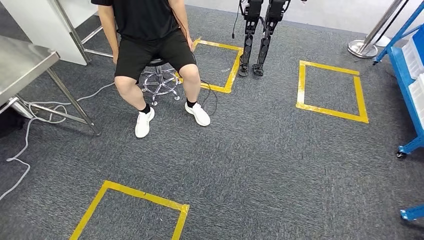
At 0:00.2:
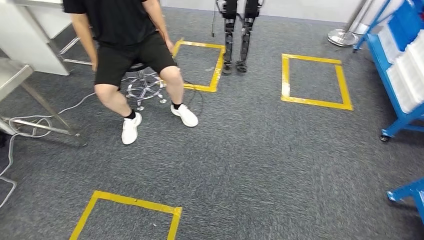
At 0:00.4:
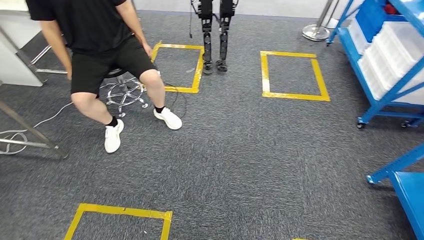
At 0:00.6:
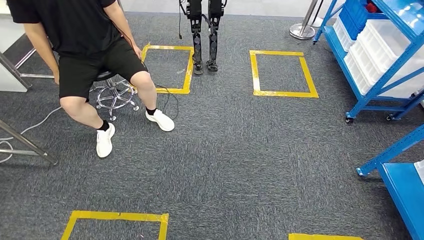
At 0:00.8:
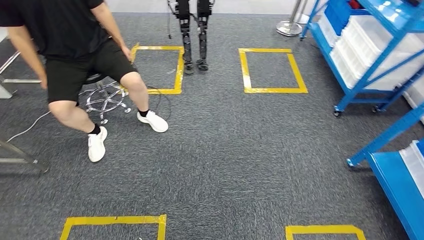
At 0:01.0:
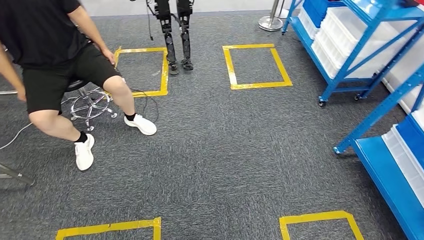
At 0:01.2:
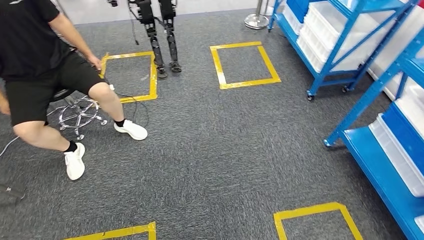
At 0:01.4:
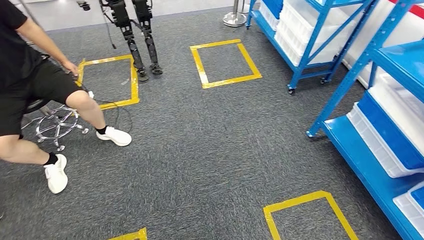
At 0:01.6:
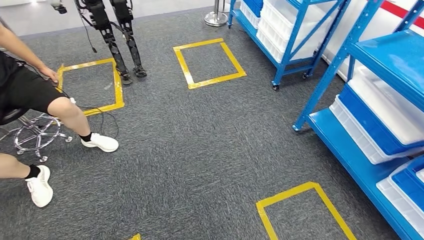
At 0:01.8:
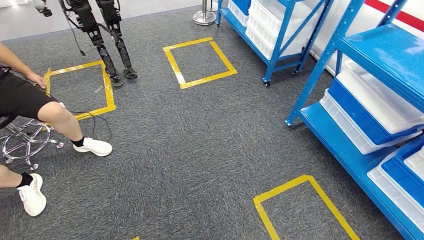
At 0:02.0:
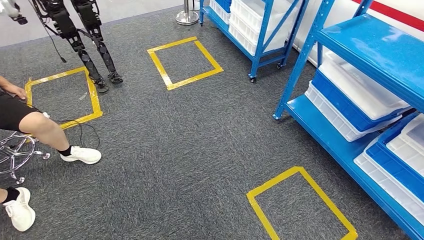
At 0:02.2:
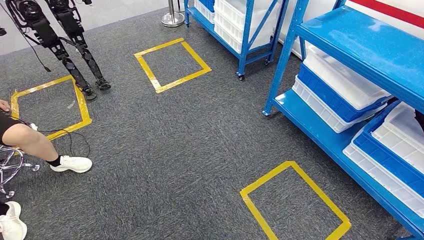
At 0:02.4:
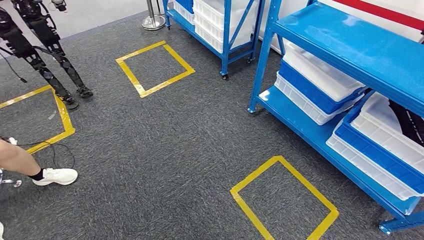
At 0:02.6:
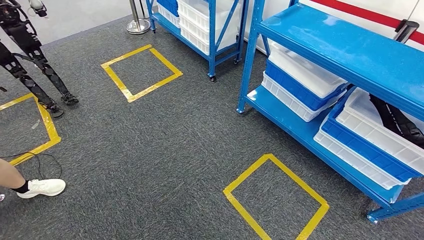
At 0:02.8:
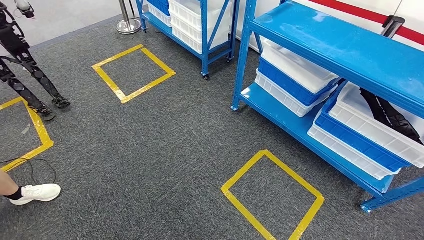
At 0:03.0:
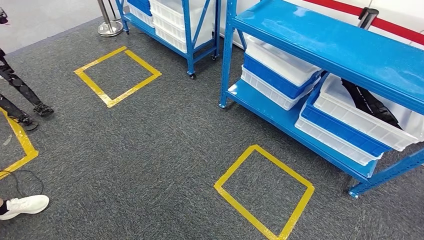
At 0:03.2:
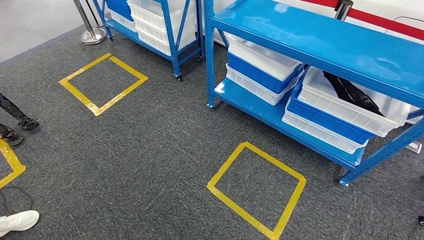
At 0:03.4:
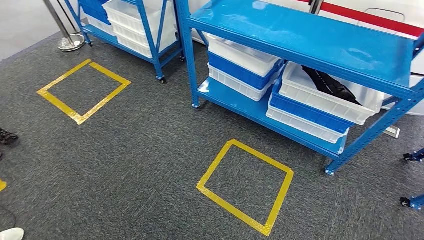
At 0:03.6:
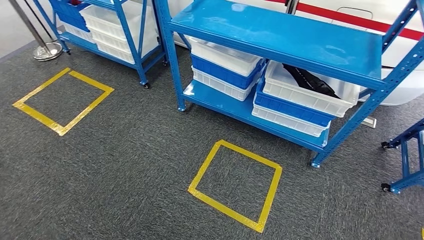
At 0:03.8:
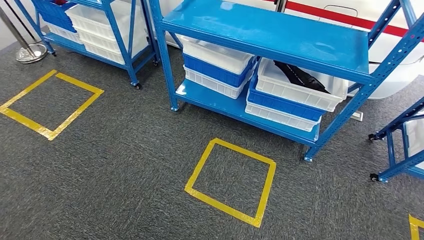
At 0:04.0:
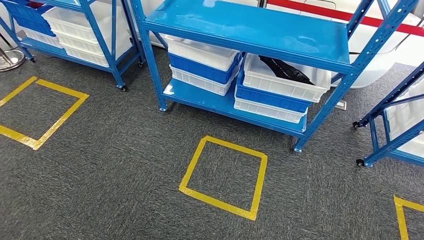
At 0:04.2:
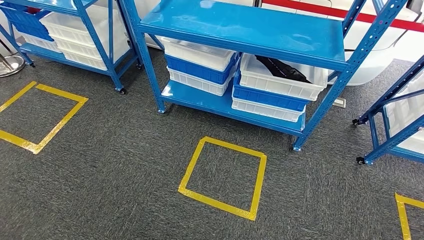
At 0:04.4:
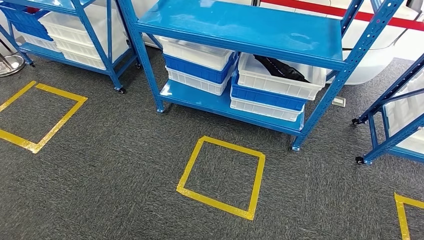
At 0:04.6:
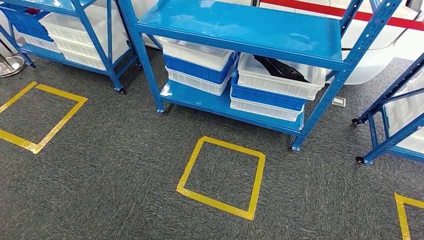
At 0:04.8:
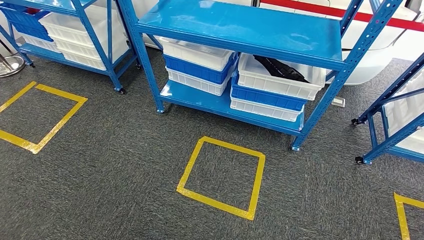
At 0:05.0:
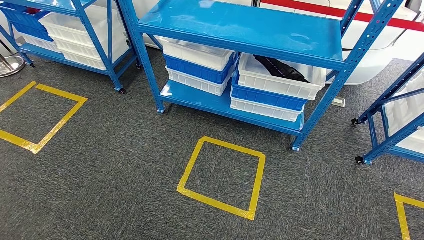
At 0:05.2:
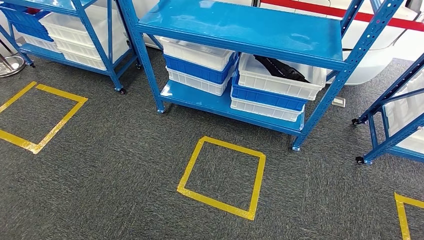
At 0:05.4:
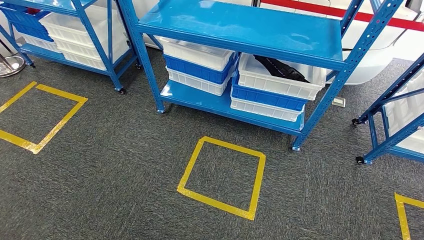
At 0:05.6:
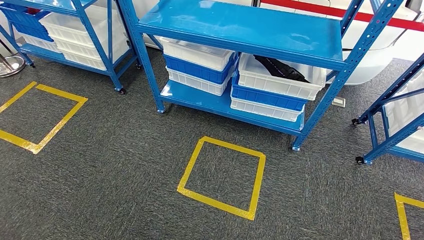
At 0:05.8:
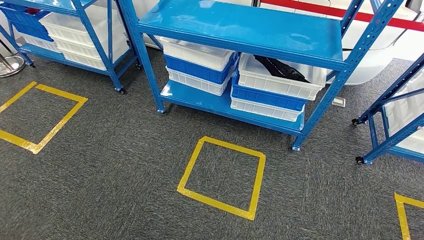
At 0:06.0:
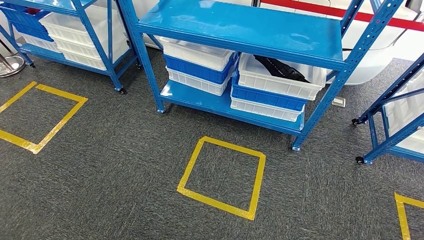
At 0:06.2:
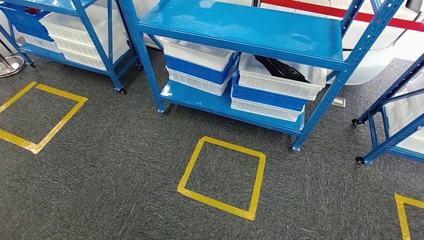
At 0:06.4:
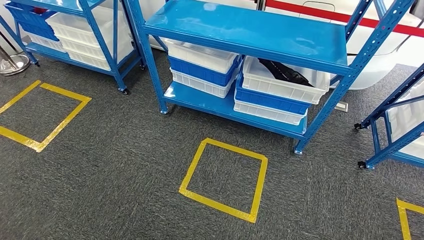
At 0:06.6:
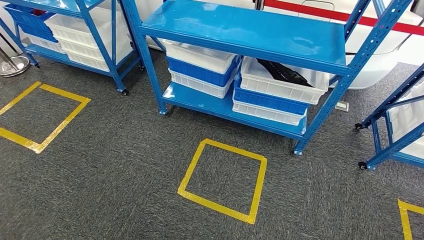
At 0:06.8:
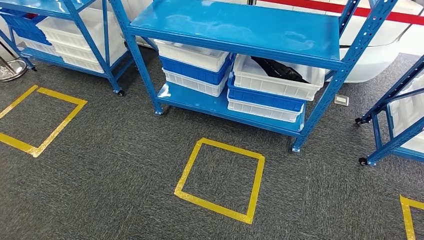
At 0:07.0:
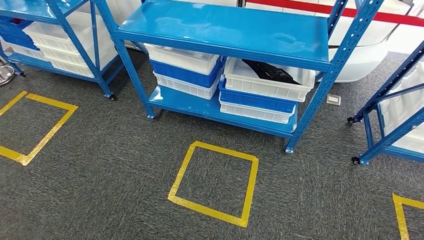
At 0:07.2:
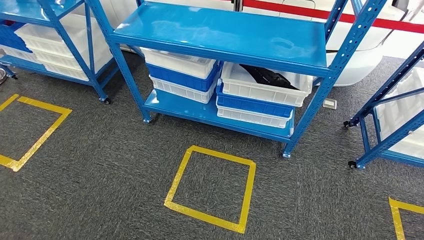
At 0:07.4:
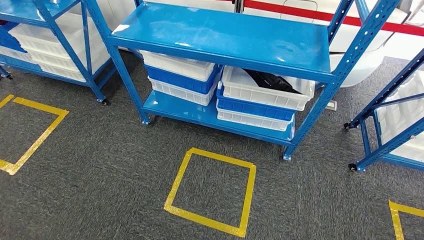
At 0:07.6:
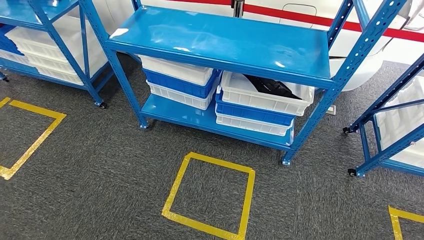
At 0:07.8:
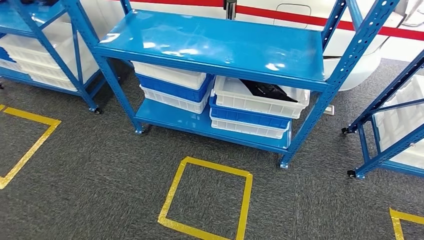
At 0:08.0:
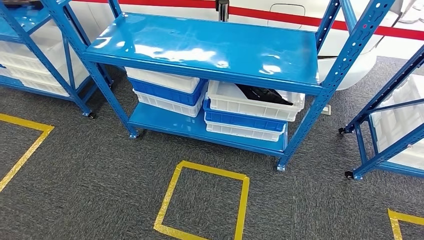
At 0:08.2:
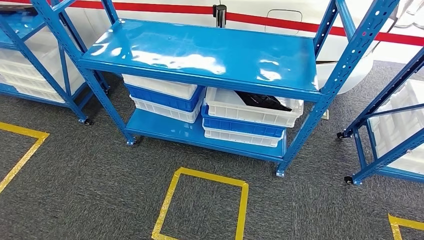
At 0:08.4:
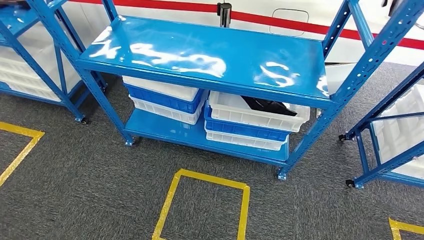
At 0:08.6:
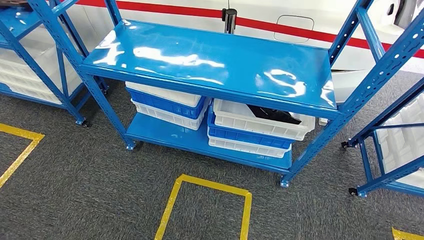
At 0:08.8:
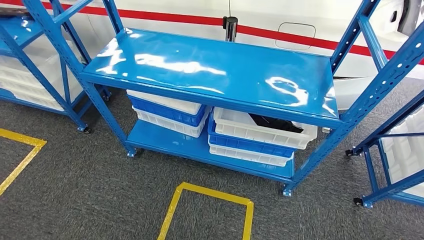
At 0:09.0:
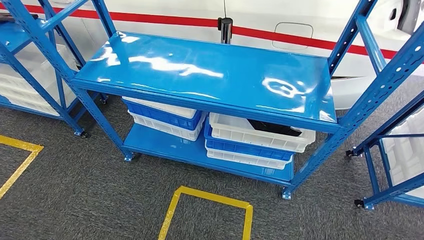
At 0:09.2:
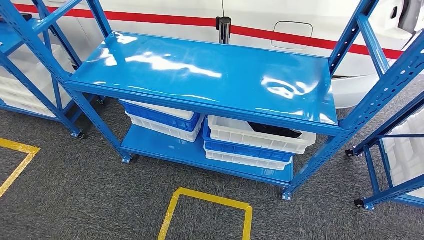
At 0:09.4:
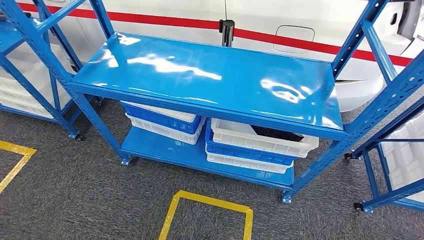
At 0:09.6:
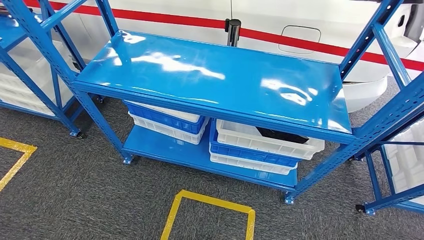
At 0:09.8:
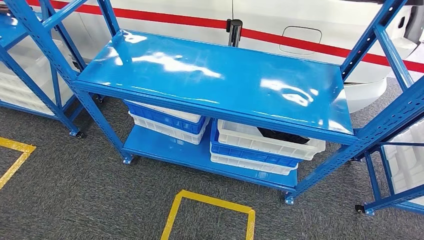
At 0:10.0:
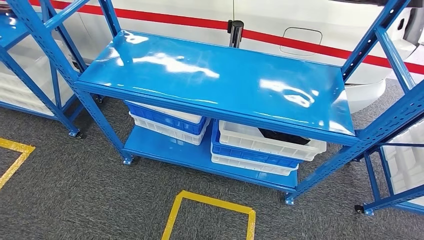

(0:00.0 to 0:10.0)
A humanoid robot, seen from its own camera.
0:04.2 - 0:05.8: The two hands keep their place.

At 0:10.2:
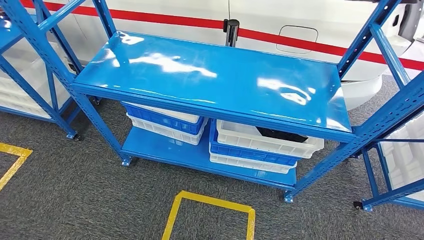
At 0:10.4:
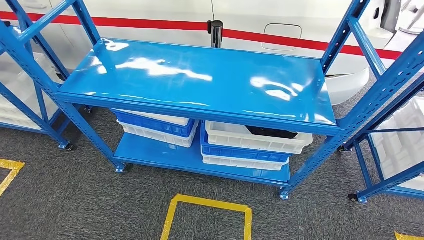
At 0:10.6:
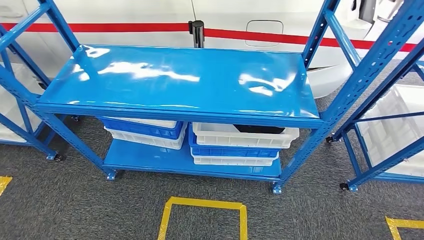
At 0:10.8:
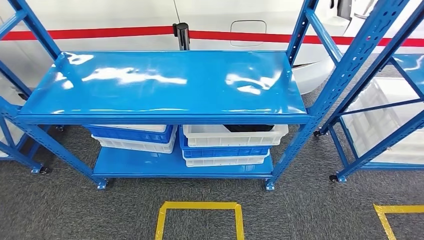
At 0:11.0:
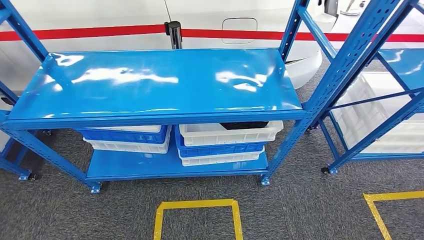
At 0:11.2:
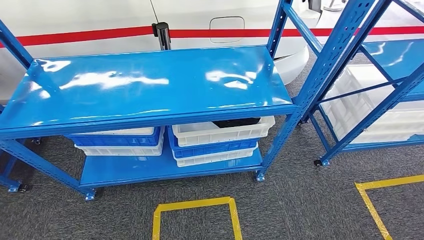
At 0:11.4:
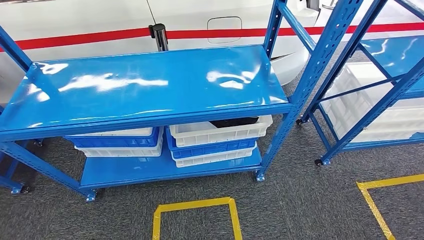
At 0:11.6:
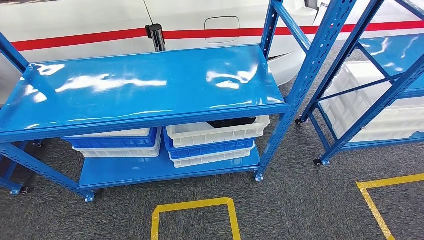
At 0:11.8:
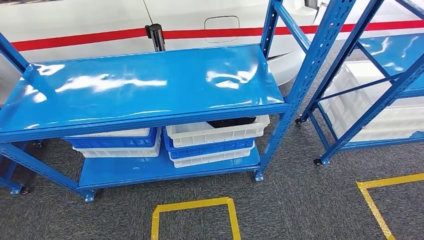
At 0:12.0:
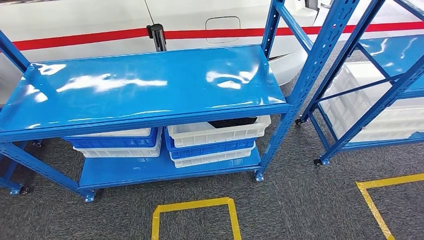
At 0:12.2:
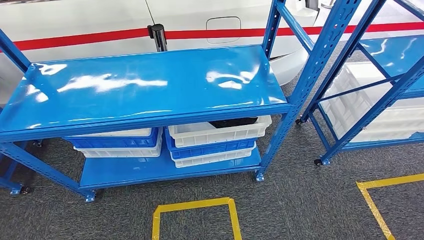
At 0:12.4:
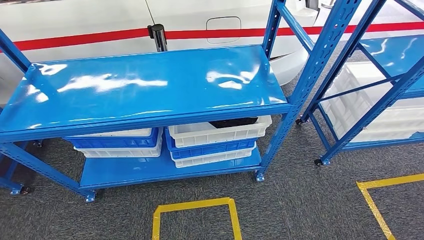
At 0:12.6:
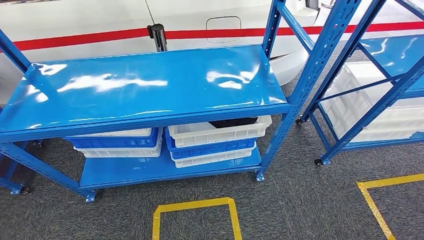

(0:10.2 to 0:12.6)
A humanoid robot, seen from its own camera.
Step, 0:10.2 - 0:12.6: Return to the initial position at the shelf.
0:11.4 - 0:12.6: Both hands move backward, approximately 5 cm.

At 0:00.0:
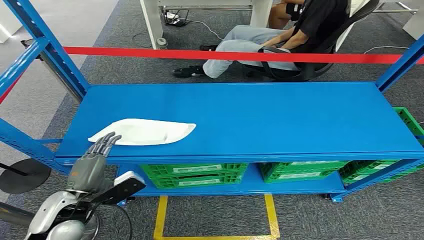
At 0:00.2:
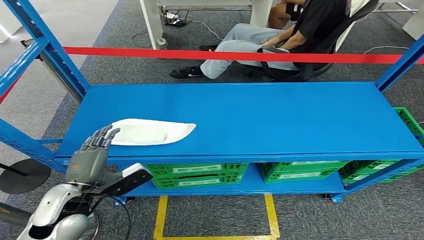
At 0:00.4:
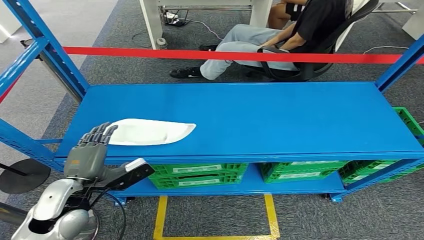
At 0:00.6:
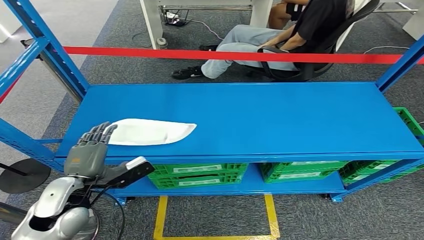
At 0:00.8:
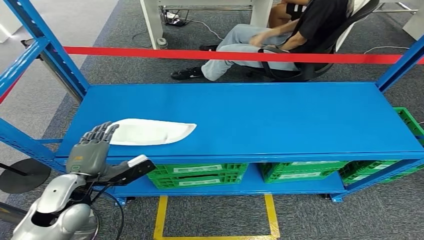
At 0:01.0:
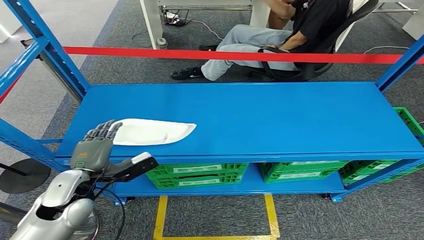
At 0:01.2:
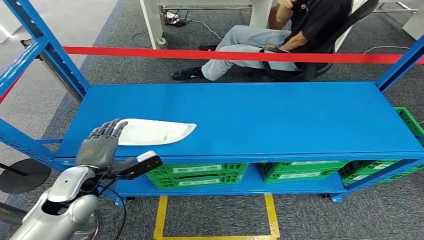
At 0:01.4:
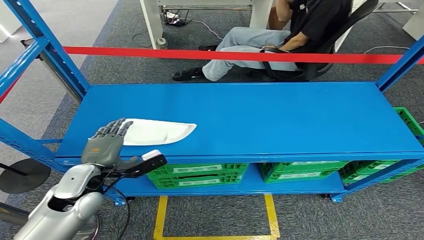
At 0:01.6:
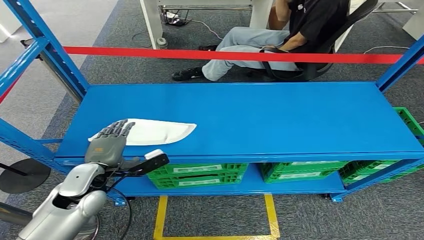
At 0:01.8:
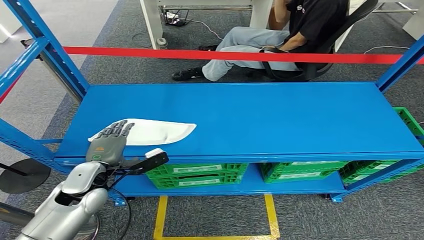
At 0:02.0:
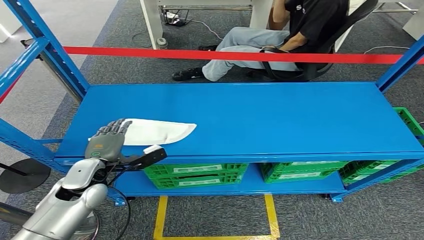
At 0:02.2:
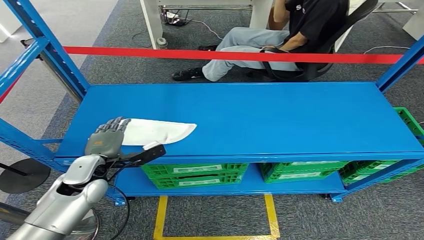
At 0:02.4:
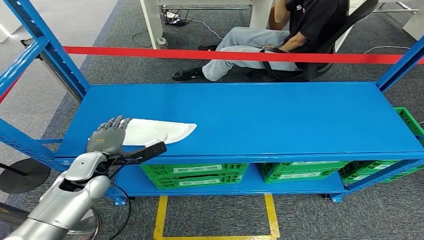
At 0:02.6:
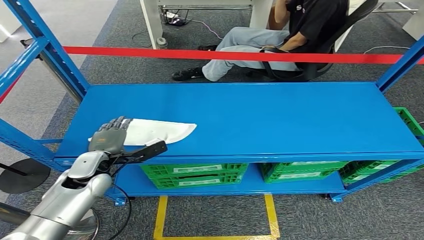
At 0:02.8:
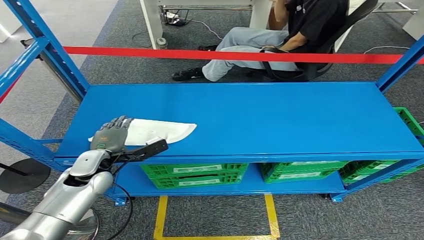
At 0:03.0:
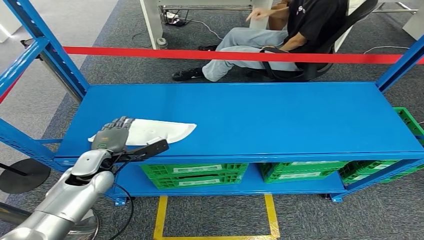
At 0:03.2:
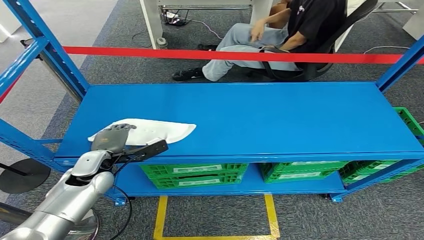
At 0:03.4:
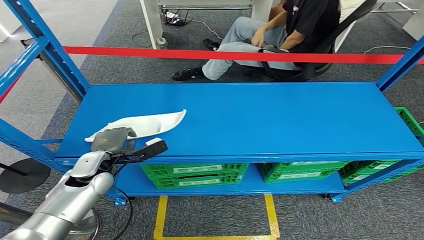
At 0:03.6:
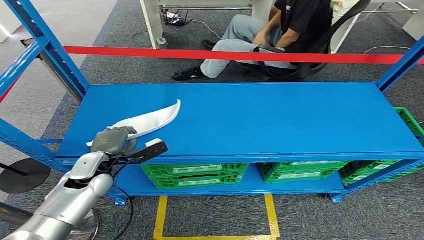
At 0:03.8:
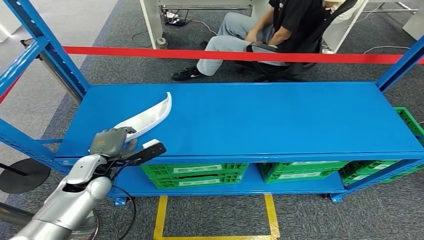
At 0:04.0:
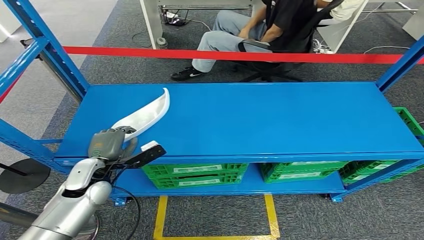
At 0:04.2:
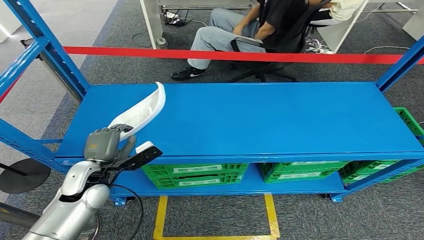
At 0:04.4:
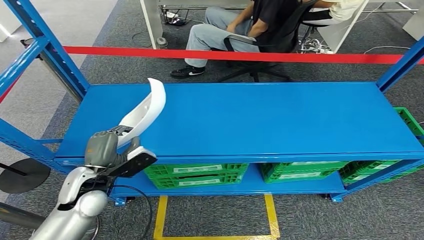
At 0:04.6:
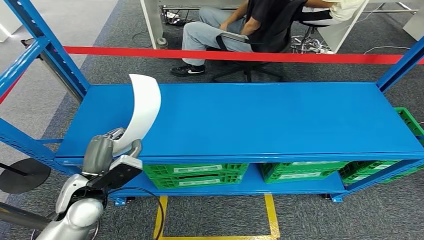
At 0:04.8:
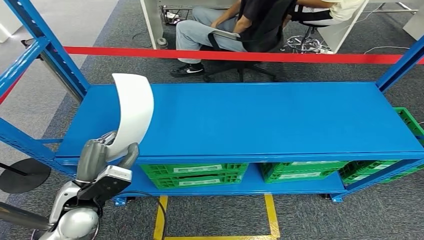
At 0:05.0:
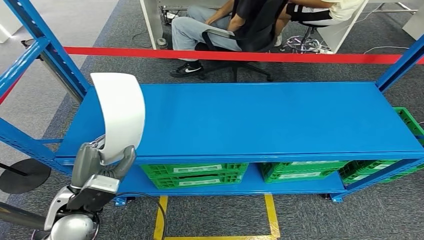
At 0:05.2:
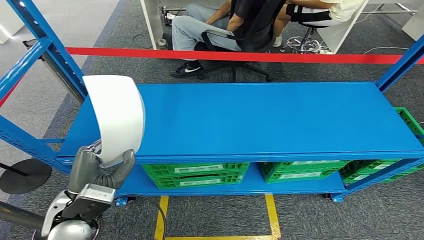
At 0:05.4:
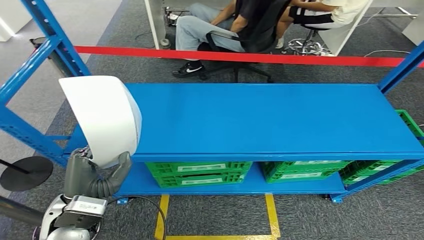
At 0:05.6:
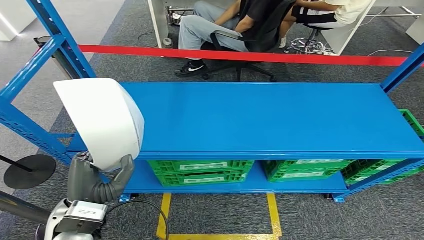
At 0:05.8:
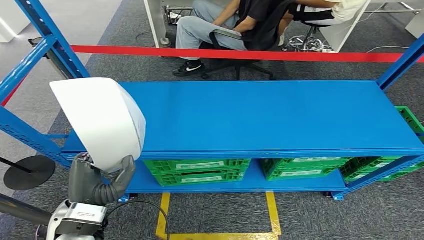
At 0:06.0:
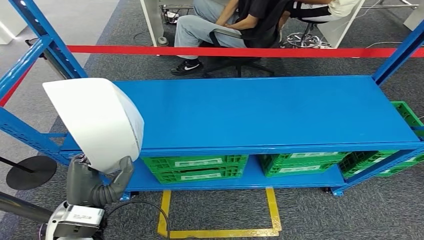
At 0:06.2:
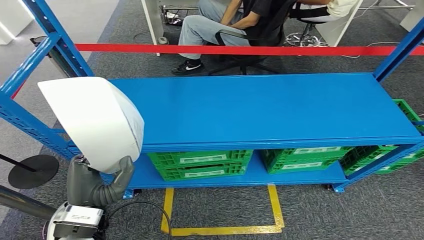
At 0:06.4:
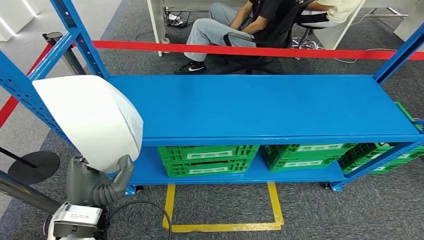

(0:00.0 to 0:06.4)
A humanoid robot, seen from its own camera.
0:01.6 - 0:03.2: The left hand ends up approximately 5 cm from where it was.
